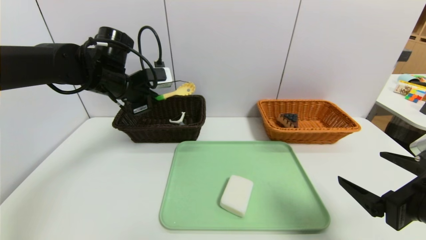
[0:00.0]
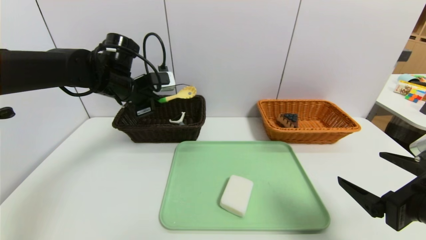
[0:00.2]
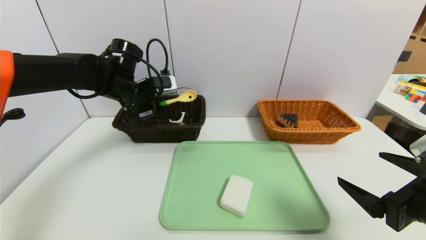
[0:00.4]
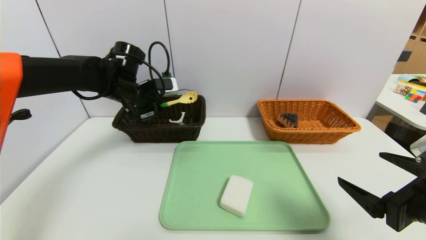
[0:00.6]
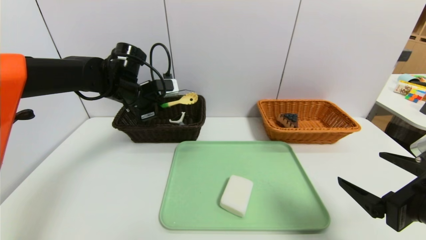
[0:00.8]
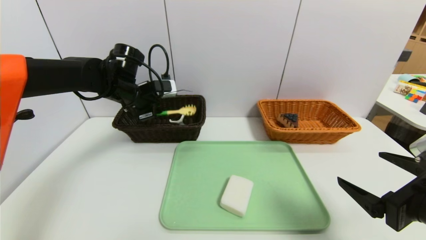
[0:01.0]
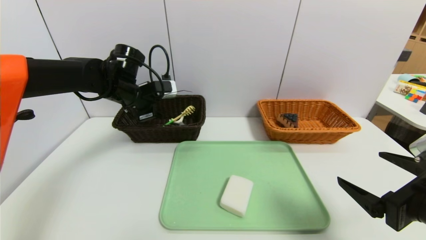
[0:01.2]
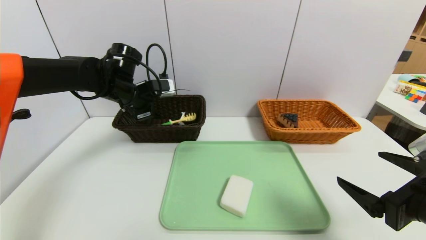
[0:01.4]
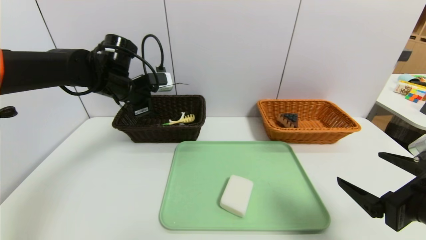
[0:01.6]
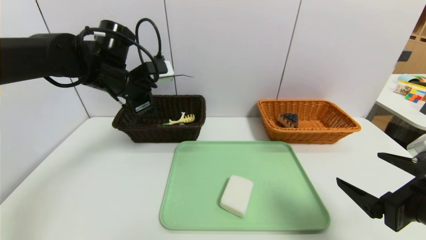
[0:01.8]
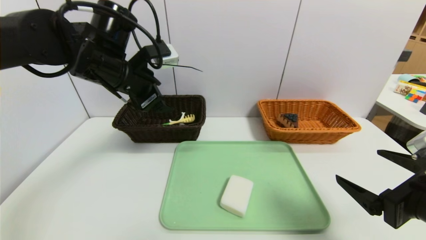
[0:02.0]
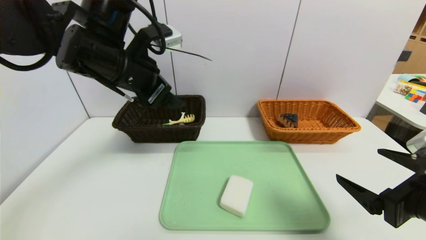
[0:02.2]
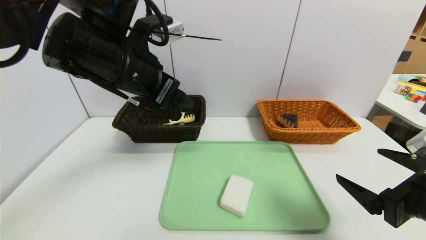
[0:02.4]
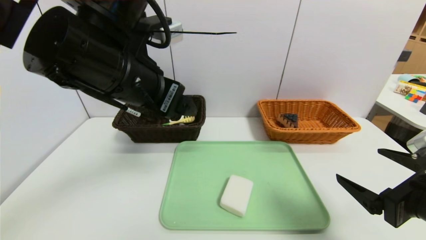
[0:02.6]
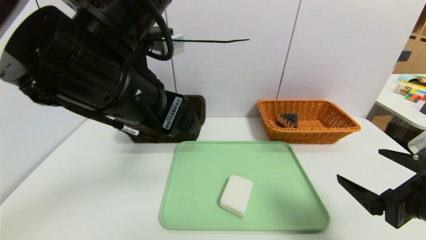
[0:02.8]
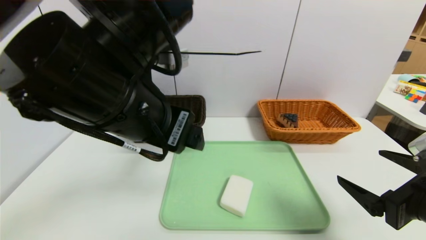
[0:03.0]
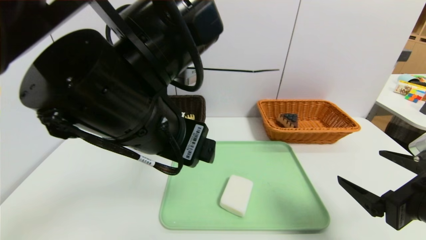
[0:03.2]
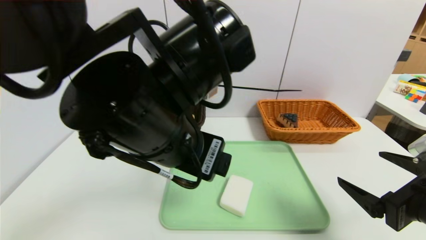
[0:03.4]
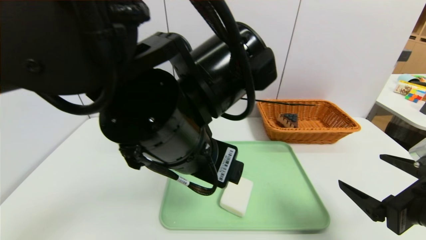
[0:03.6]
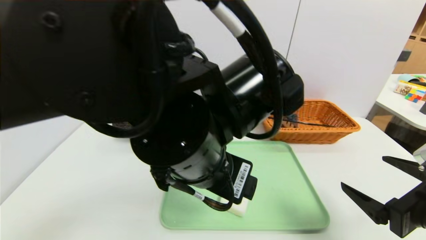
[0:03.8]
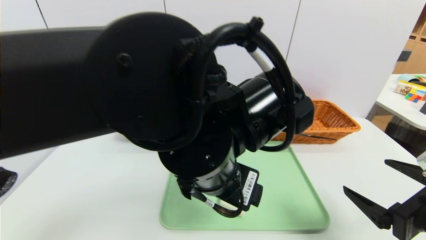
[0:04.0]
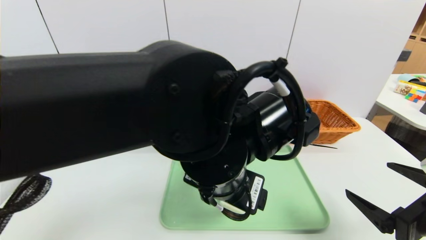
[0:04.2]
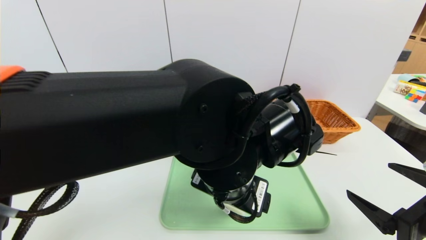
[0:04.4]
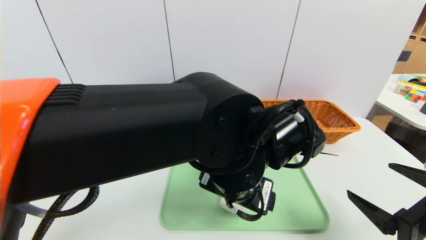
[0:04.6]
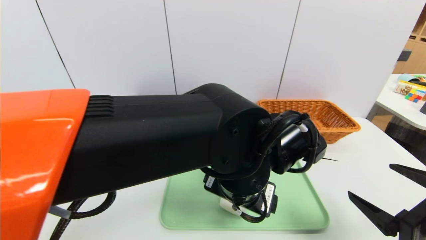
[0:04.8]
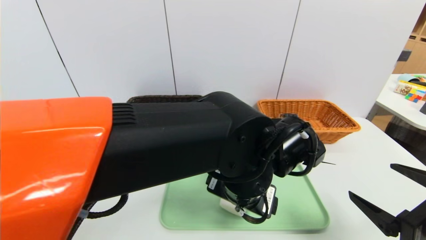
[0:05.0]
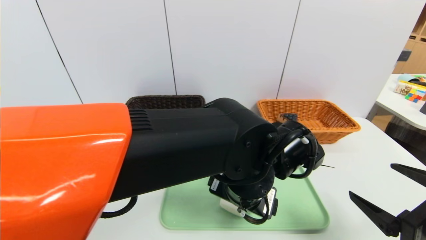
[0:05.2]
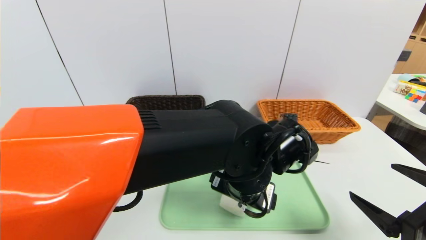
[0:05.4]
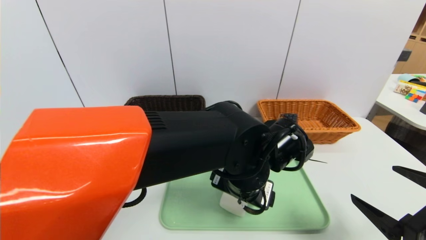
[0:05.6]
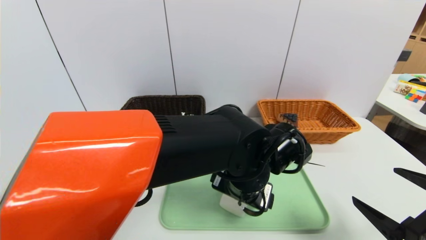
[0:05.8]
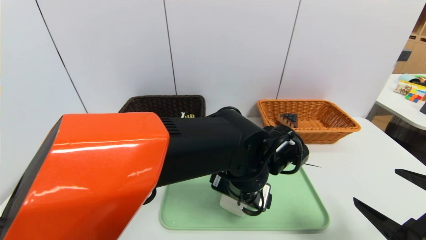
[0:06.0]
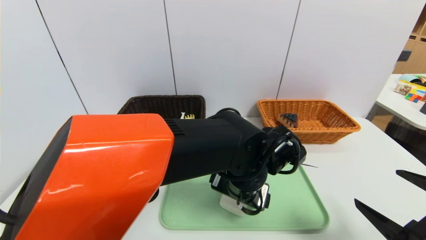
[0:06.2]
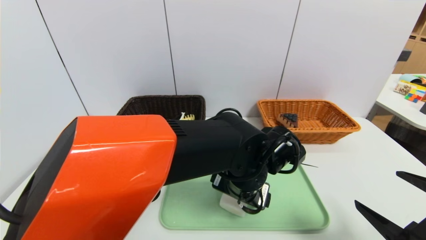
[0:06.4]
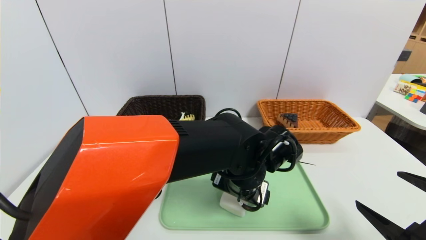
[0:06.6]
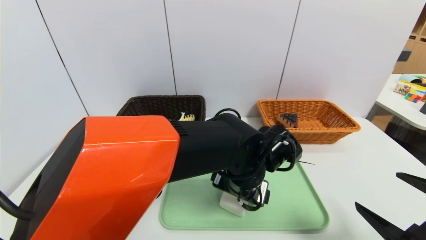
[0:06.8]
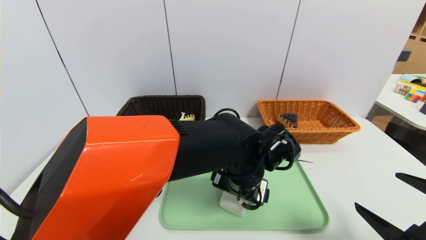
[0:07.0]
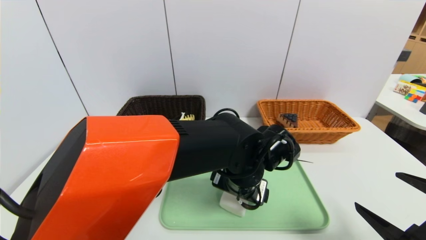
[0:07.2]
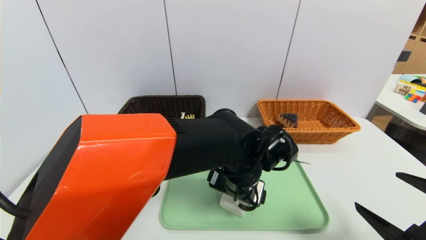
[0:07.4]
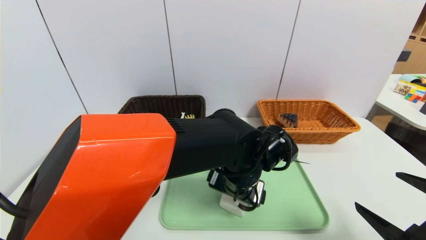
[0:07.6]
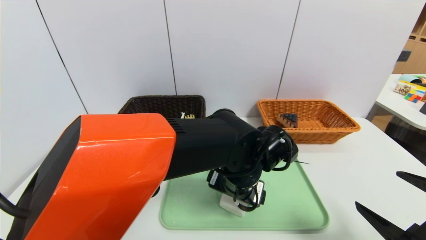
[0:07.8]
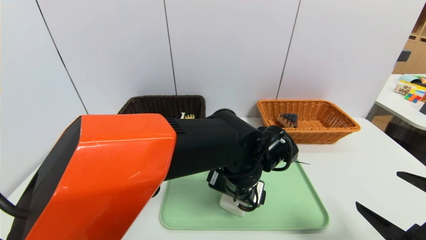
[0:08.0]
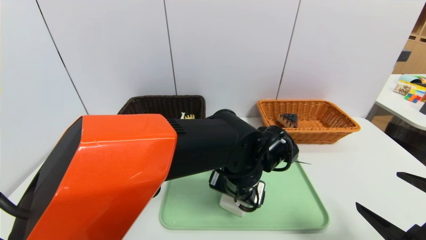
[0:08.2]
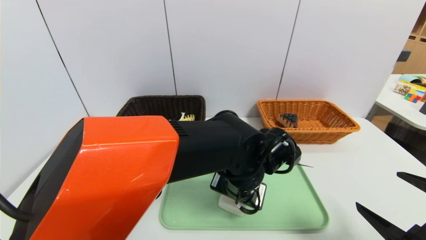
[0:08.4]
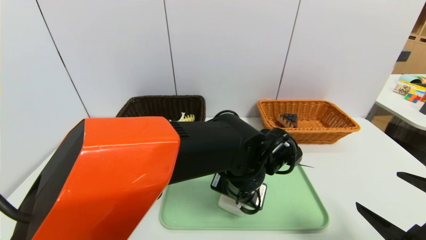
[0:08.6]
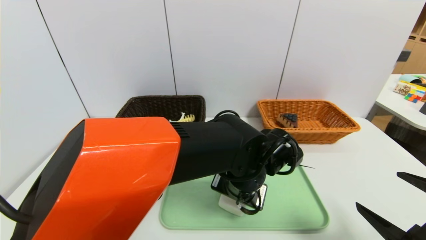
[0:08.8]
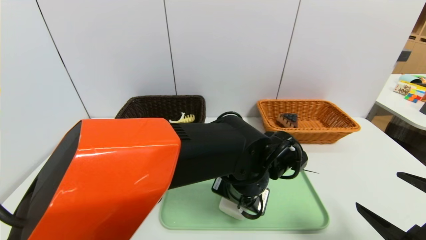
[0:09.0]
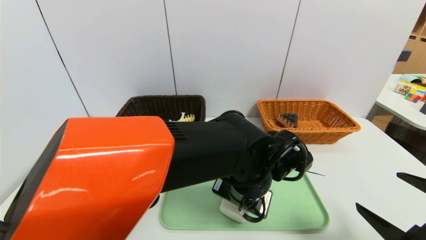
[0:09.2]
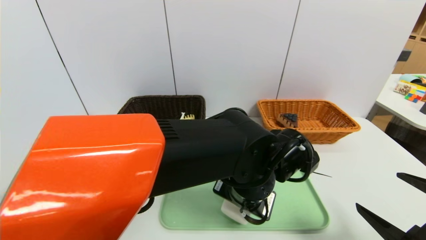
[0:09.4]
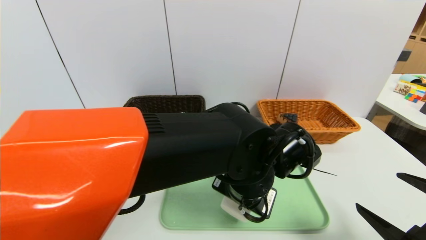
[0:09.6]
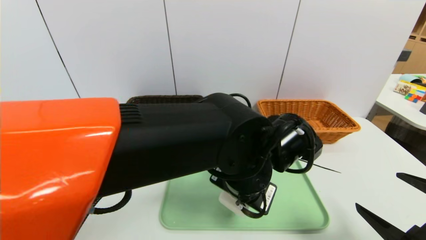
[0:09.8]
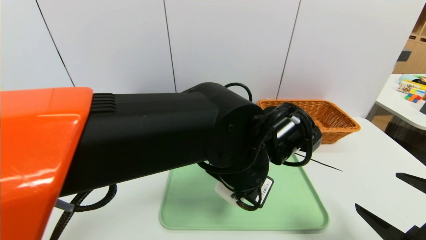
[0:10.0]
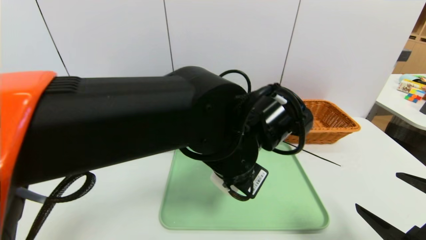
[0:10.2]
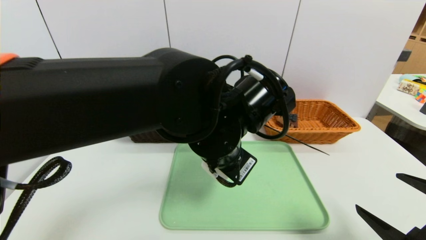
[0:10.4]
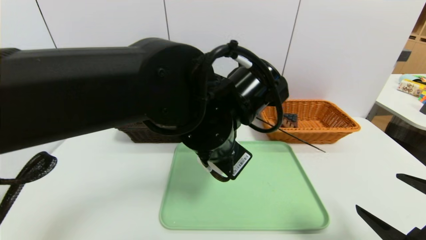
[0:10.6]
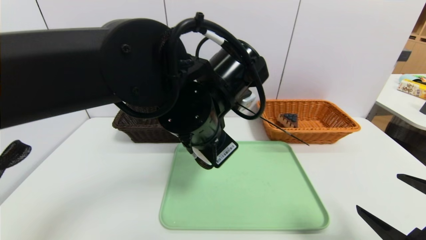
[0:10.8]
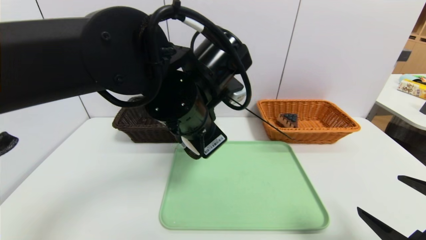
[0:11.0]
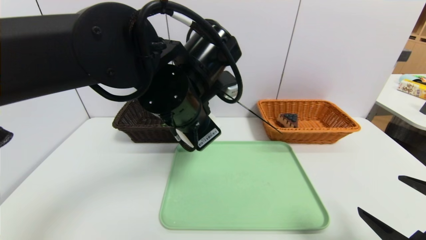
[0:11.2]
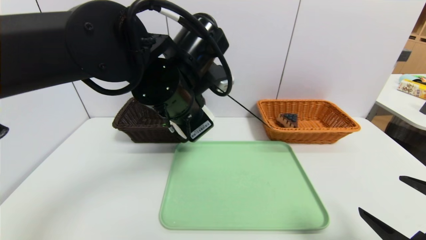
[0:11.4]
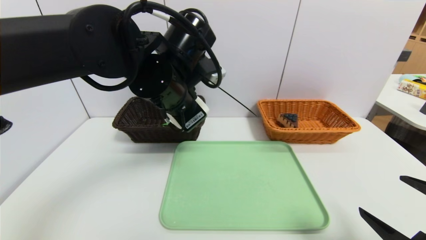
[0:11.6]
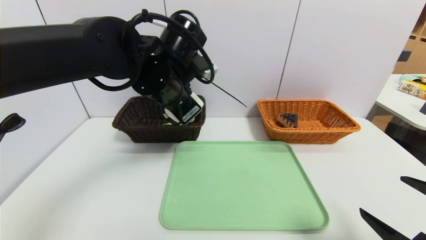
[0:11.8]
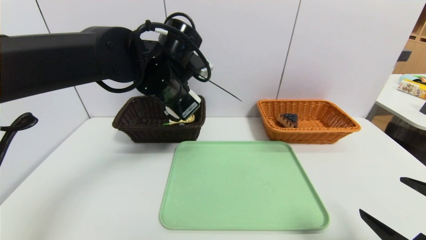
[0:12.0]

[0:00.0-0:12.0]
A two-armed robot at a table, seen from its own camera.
Task of the whole recording: place the food in the right basket with the right gripper, and place the non food items in the left basket with the left gripper.
0:00.0 to 0:01.6: The left gripper opens.
0:01.6 to 0:03.0: The left gripper shifts about 25 cm backward and to the right.
0:03.0 to 0:04.4: The left gripper is displaced to the right and downward by roughly 15 cm.
0:04.4 to 0:06.0: The left gripper travels downward by approximately 5 cm.
0:06.0 to 0:07.6: The grippers stay close to where they were, moving slightly.
0:07.6 to 0:09.0: The left gripper closes.
0:09.0 to 0:10.4: The left gripper shifts roughly 10 cm upward.
0:10.4 to 0:12.0: The left gripper is displaced forward and to the left by about 15 cm.

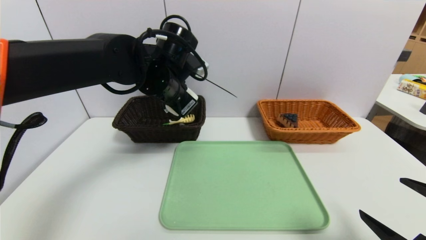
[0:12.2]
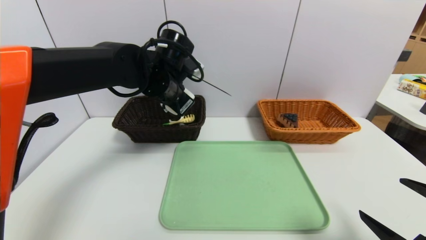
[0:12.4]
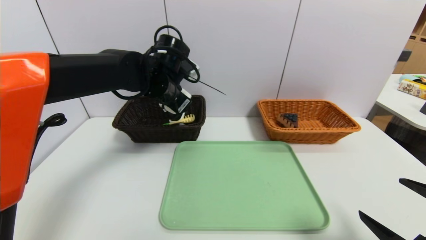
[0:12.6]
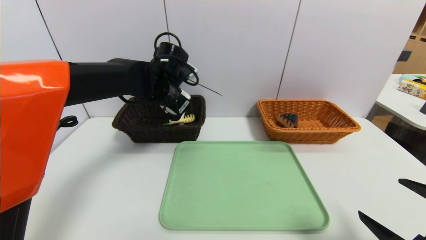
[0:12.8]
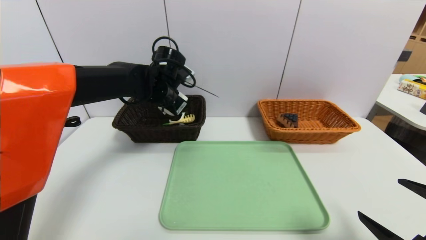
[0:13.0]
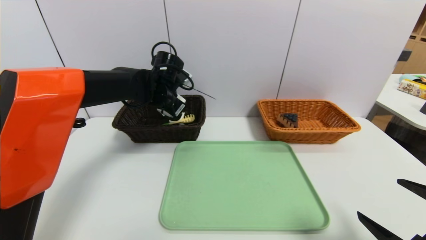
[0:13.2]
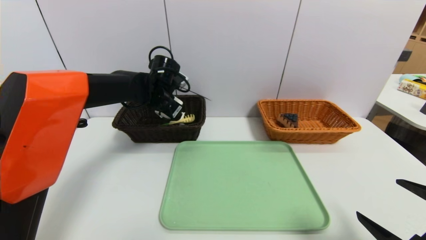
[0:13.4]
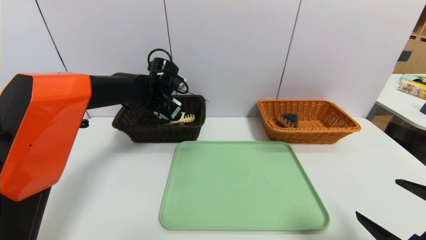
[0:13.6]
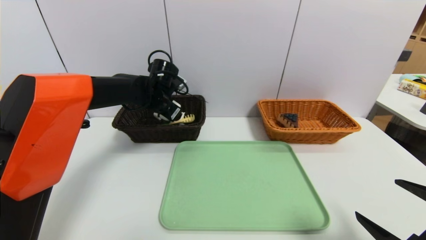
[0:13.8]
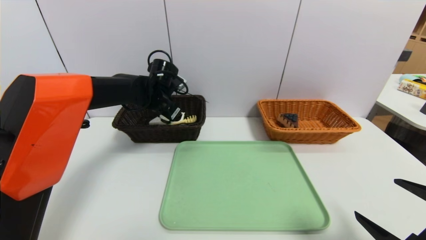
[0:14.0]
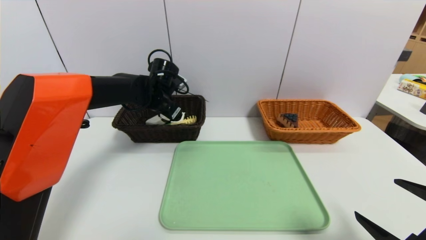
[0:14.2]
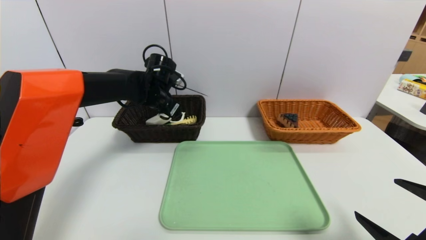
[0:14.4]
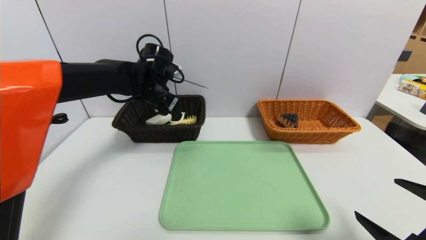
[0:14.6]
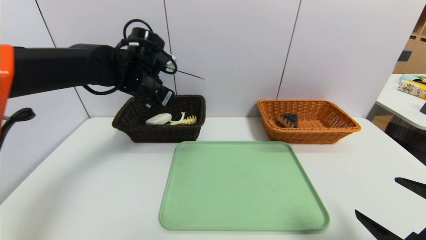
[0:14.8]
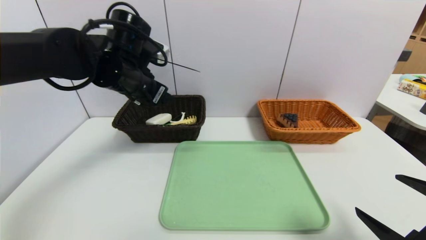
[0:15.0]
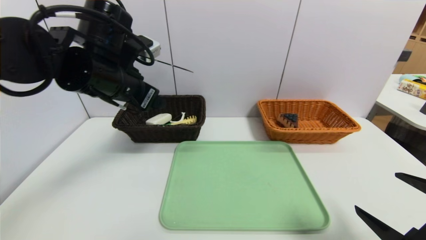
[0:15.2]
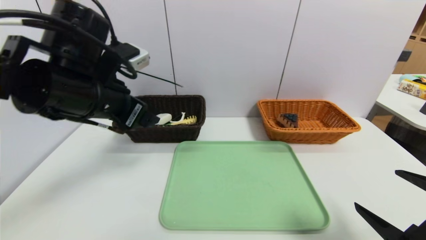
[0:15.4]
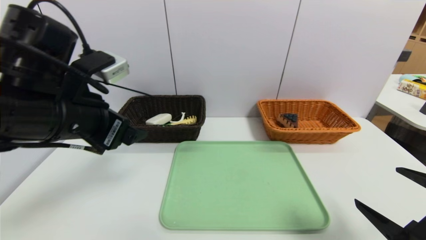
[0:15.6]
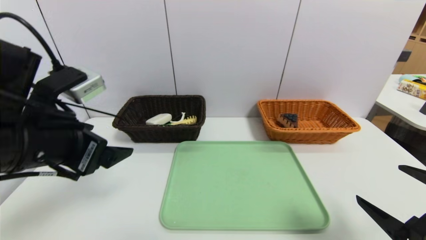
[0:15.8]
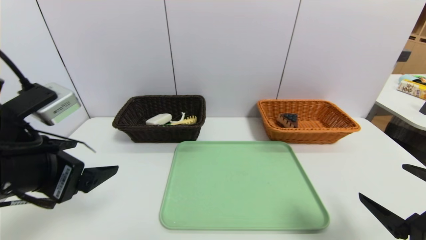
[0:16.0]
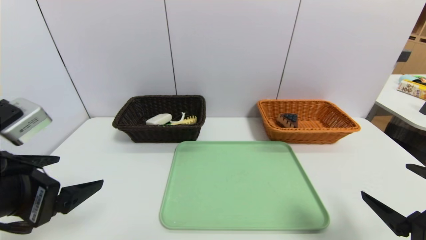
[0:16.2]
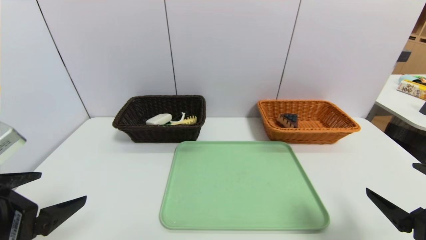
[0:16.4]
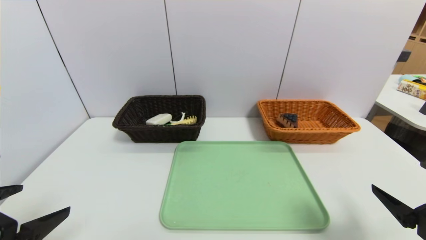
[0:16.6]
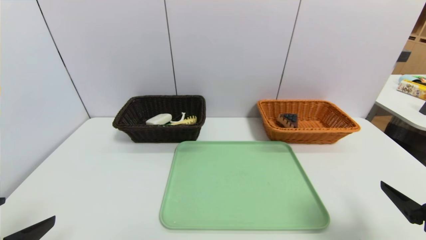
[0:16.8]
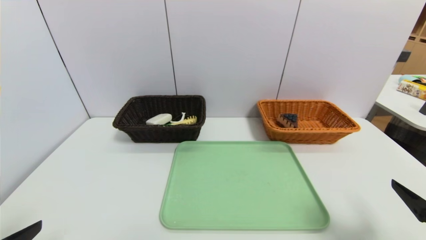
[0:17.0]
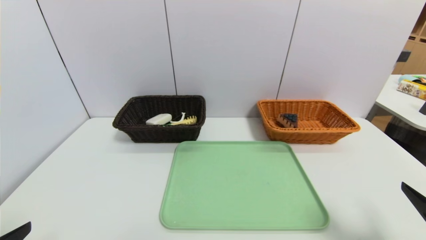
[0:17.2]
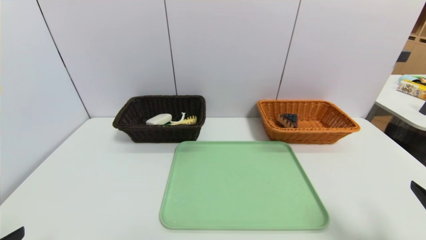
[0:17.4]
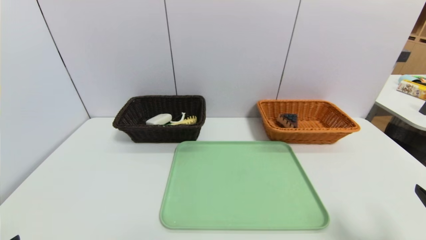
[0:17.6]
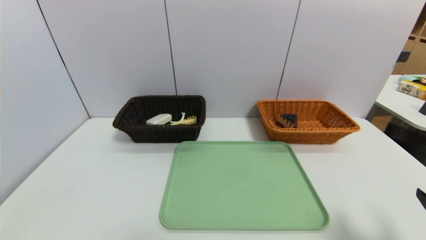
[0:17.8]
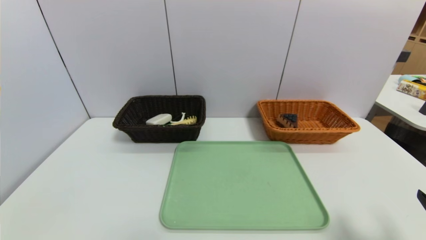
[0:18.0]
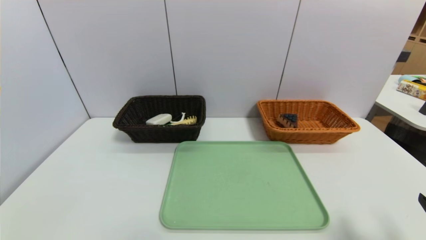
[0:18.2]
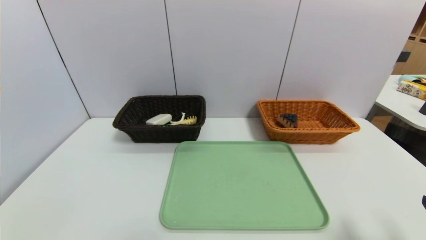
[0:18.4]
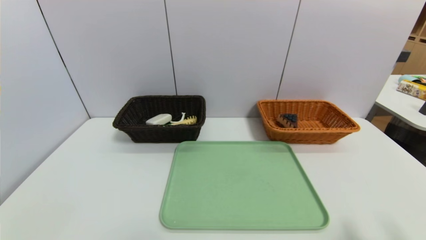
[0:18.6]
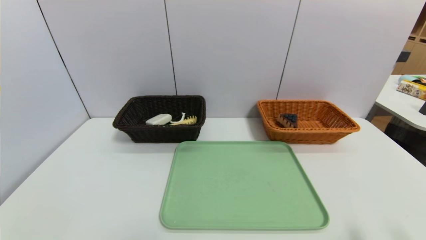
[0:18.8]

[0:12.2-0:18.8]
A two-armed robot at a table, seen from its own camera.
Task of the whole recording: place the food in the right basket with the right gripper, and place the non food items in the left basket with the left gripper.
0:12.2 to 0:13.8: The left gripper is displaced forward and downward by approximately 10 cm.
0:13.8 to 0:15.4: The left gripper heads backward and upward, covering about 25 cm.
0:15.4 to 0:17.2: The left gripper moves backward, to the left and downward, about 25 cm.
0:17.2 to 0:18.8: The right gripper moves approximately 5 cm.
